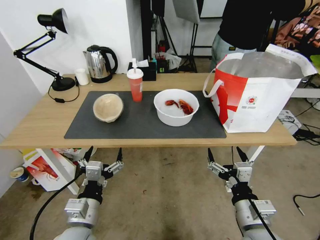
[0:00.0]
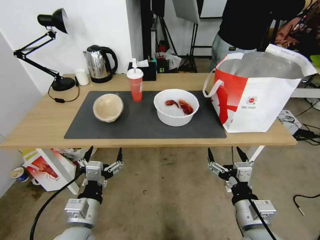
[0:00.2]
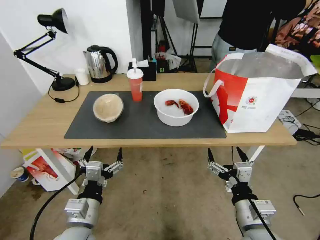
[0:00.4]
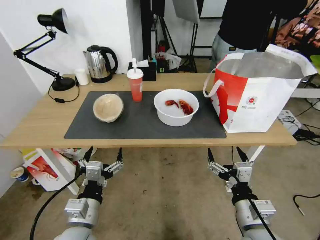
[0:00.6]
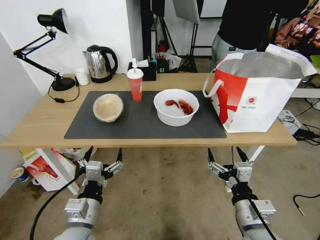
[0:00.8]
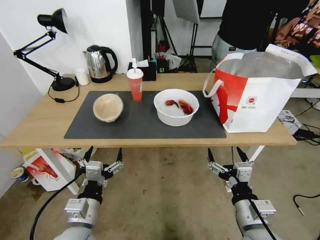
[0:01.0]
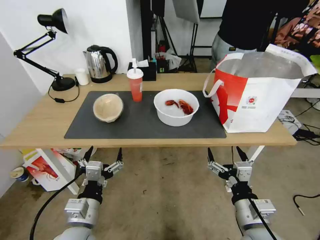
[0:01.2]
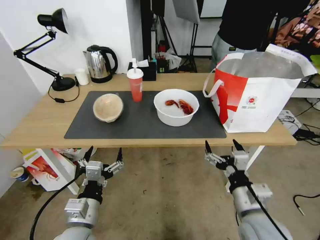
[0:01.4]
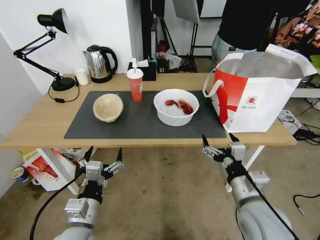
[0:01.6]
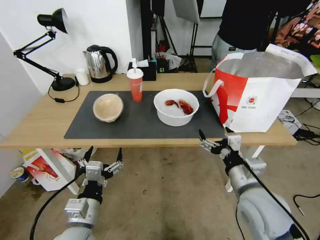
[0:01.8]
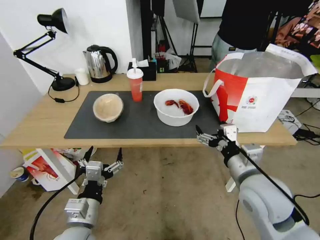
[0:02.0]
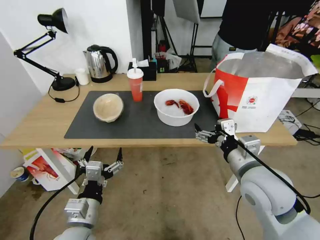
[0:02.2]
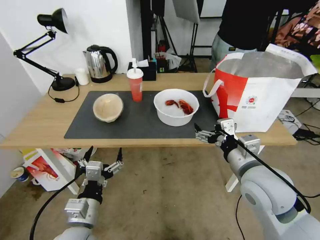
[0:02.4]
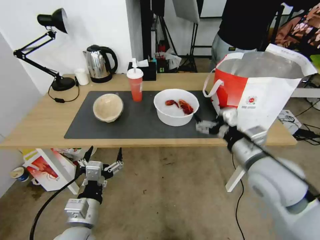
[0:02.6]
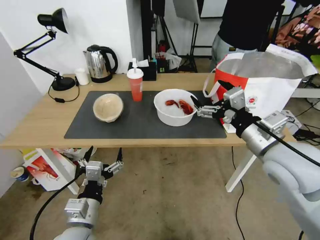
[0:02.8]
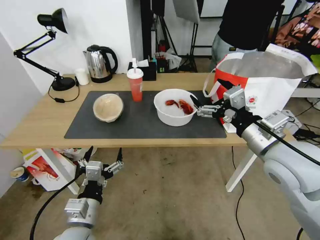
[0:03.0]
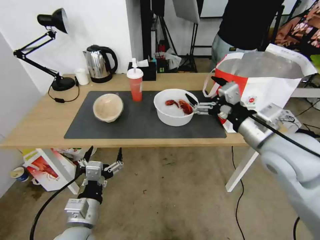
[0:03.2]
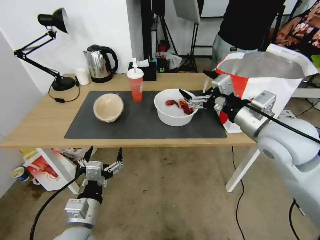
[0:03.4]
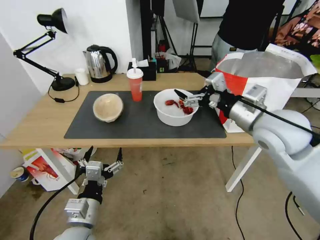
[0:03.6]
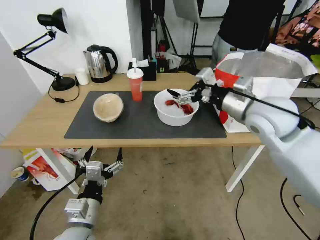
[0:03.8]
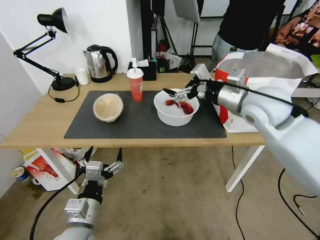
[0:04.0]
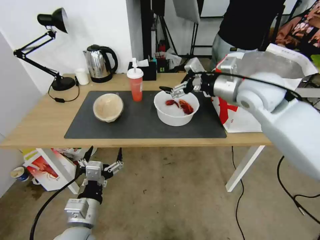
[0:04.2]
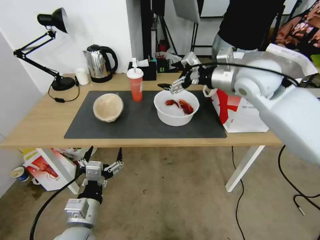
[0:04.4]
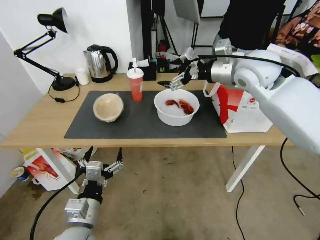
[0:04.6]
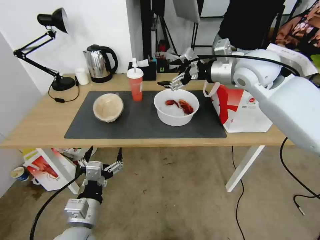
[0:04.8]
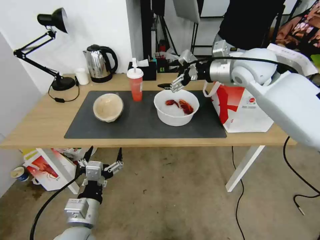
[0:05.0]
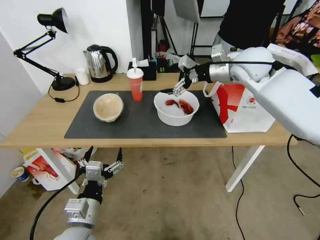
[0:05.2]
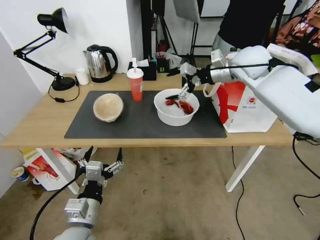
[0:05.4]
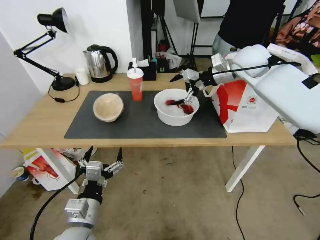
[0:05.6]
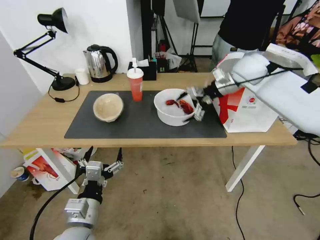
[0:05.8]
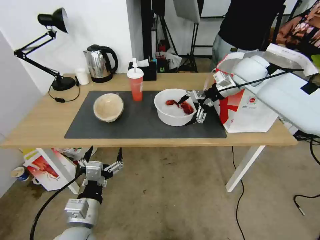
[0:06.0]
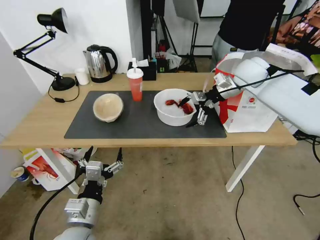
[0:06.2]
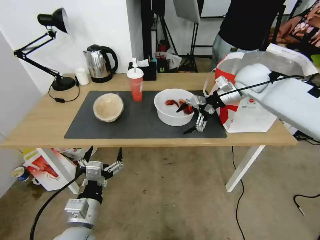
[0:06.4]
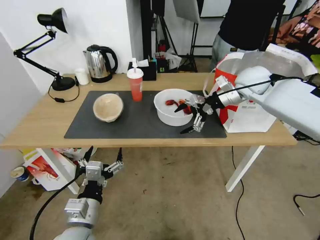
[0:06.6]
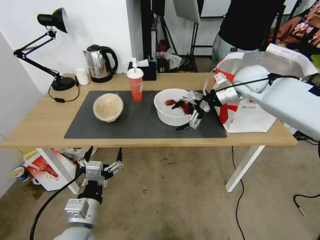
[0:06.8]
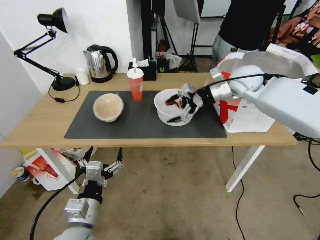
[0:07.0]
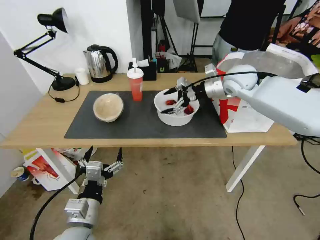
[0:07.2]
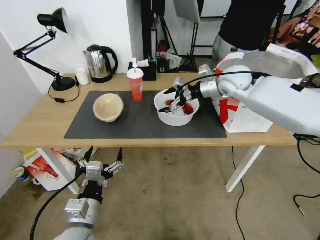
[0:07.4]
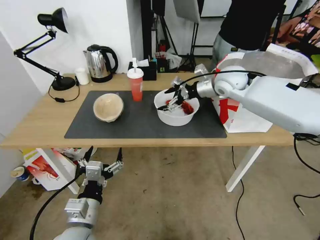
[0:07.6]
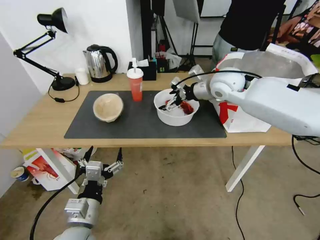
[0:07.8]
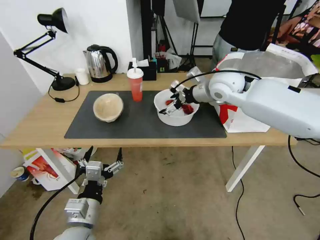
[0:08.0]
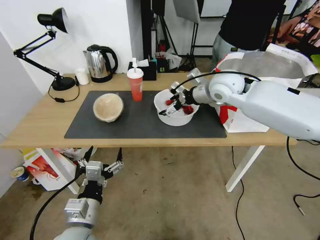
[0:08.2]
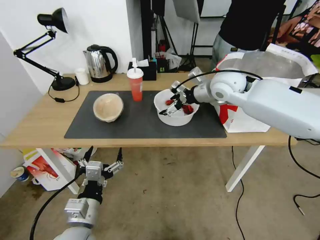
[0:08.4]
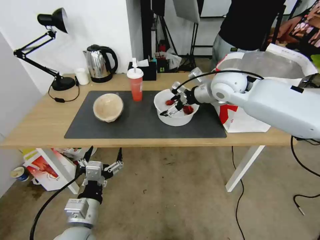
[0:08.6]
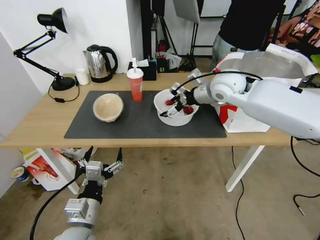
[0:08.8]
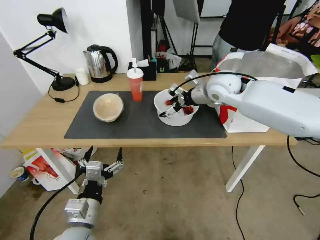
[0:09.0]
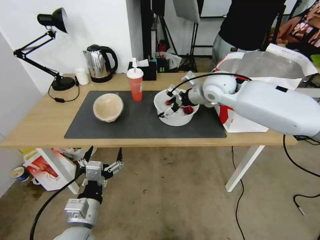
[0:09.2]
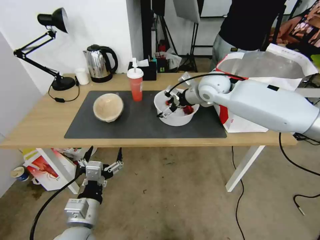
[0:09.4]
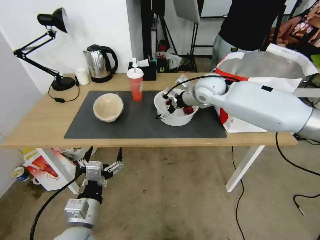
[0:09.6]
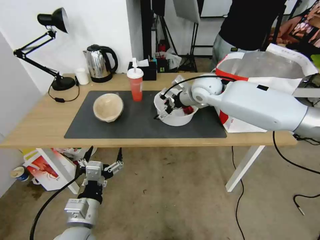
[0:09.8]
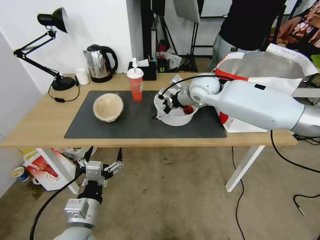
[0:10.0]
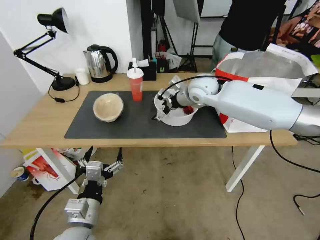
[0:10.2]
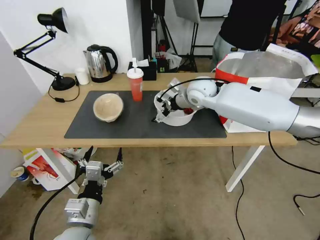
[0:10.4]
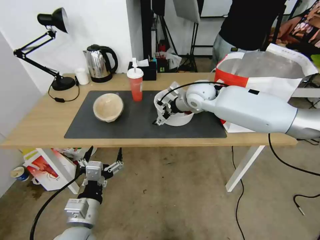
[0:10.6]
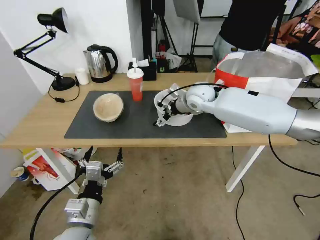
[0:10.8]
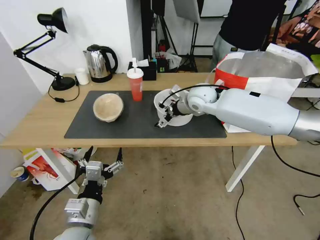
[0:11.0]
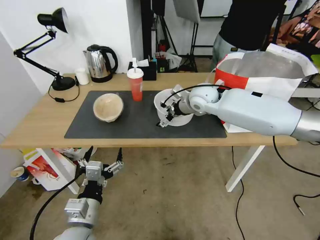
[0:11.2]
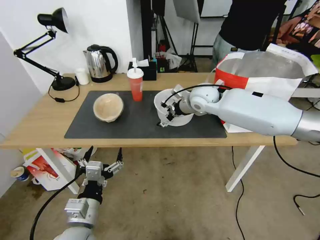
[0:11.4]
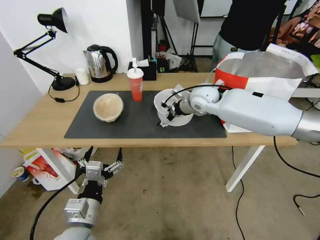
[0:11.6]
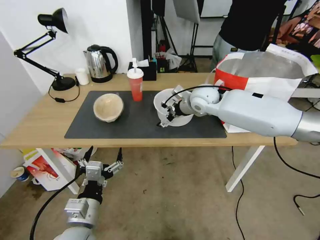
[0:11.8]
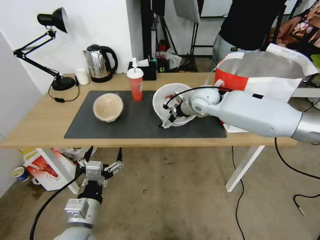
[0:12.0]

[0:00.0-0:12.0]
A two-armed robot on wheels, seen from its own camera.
Task of the whole recording: Pick up the trash from the table and place it into the takeout bag.
0:01.6 to 0:03.0: The right gripper shifts roughly 15 cm upward and forward.
0:03.0 to 0:04.4: The right gripper moves forward and upward, about 20 cm.
0:04.4 to 0:06.0: The right gripper shifts about 10 cm forward and to the right.
0:06.0 to 0:07.6: The right gripper moves to the left, about 5 cm.
0:07.6 to 0:09.0: The grippers stay close to where they were, moving slightly.
0:09.0 to 0:10.4: The right gripper is displaced to the left by some 5 cm.
0:10.4 to 0:12.0: The grippers move only a little.

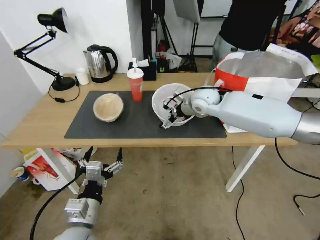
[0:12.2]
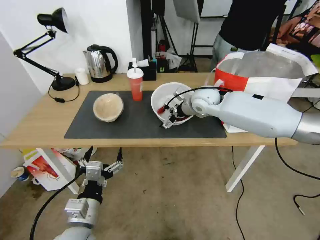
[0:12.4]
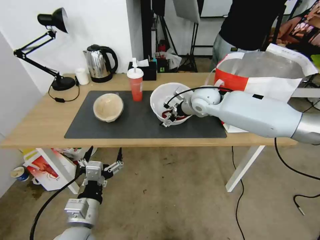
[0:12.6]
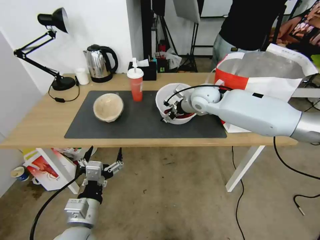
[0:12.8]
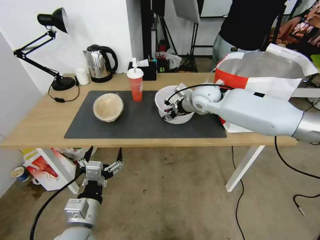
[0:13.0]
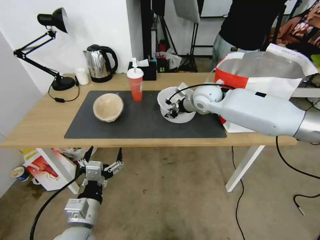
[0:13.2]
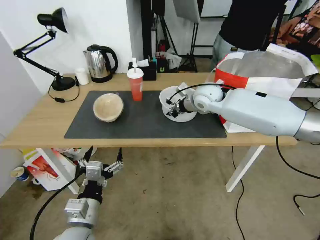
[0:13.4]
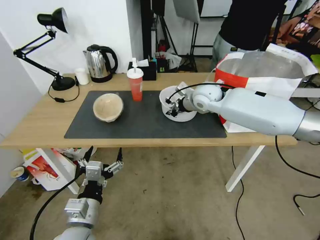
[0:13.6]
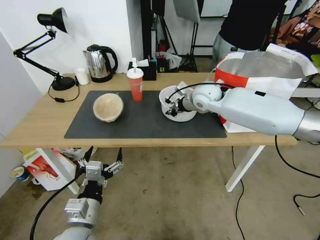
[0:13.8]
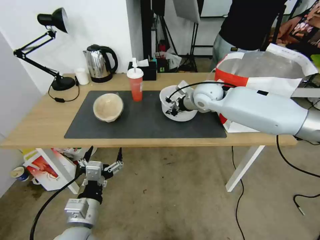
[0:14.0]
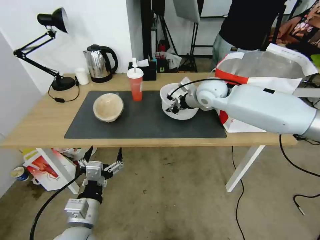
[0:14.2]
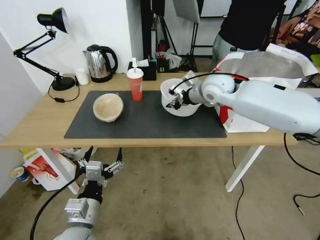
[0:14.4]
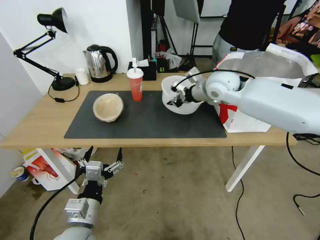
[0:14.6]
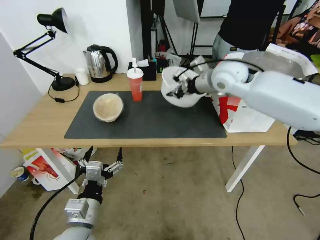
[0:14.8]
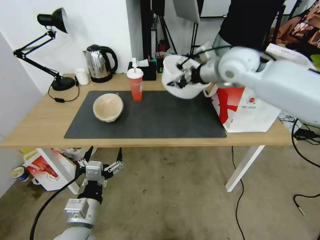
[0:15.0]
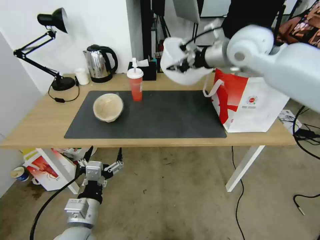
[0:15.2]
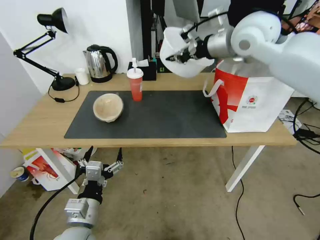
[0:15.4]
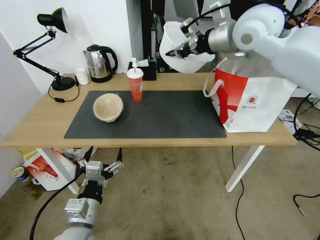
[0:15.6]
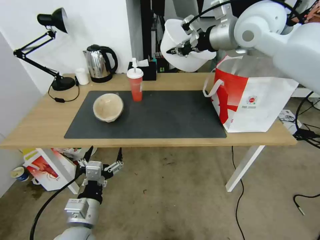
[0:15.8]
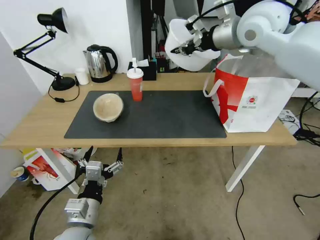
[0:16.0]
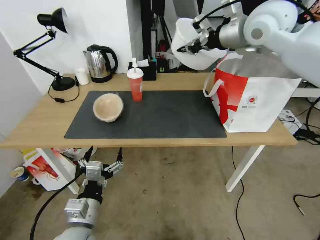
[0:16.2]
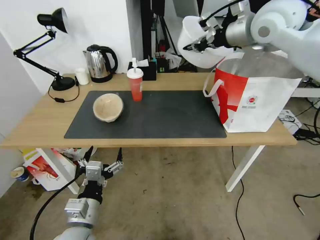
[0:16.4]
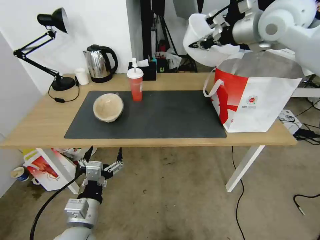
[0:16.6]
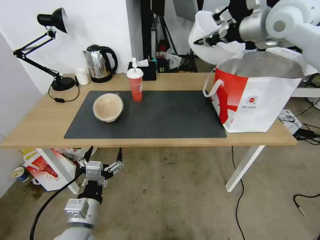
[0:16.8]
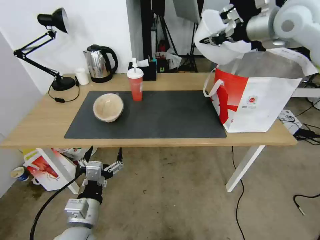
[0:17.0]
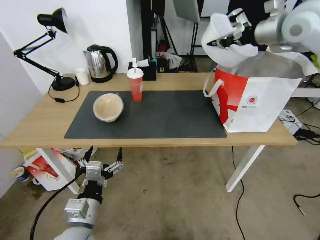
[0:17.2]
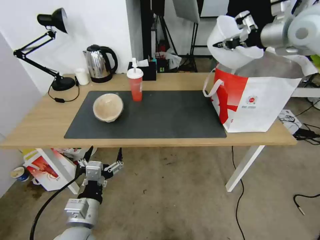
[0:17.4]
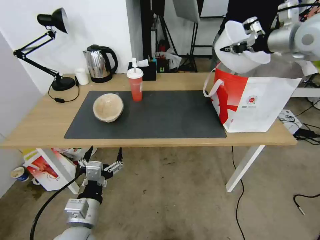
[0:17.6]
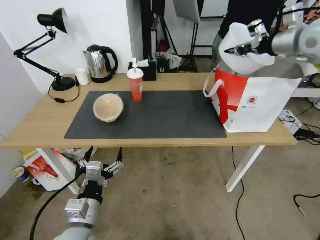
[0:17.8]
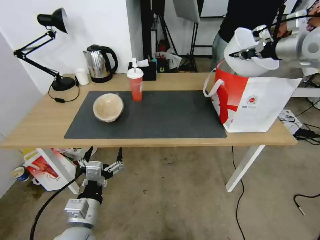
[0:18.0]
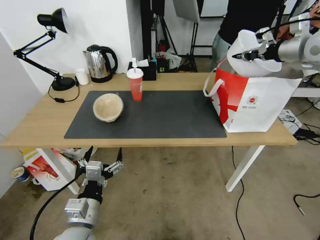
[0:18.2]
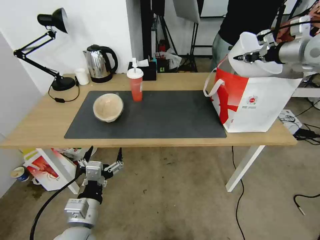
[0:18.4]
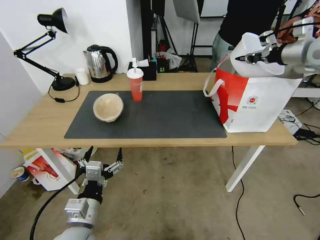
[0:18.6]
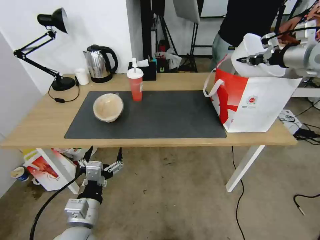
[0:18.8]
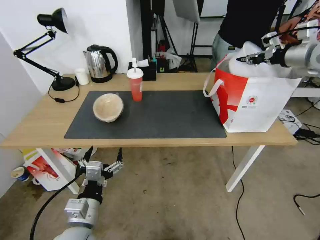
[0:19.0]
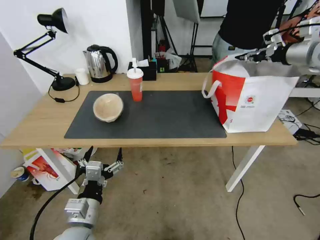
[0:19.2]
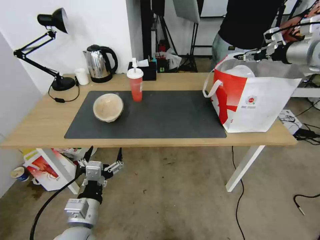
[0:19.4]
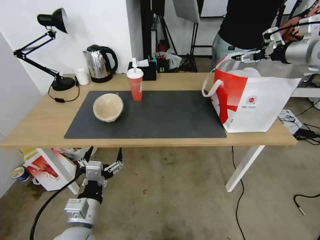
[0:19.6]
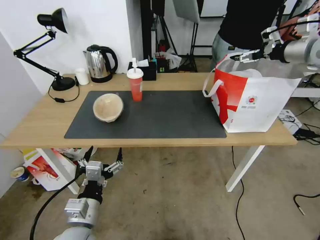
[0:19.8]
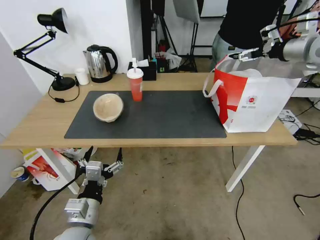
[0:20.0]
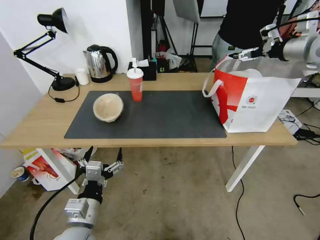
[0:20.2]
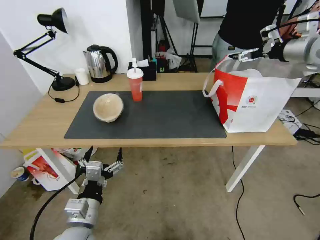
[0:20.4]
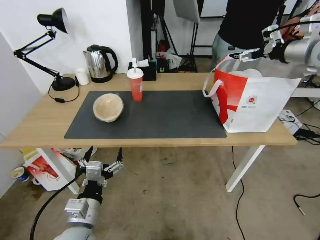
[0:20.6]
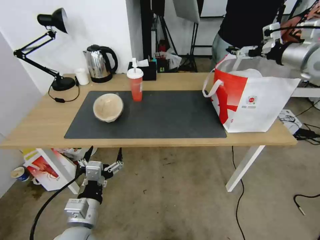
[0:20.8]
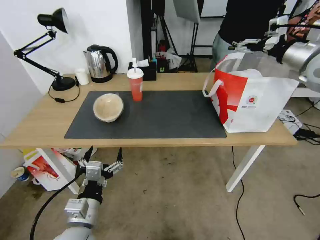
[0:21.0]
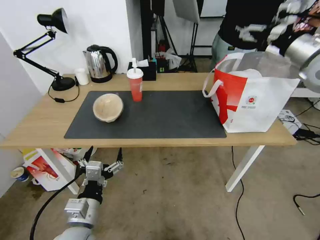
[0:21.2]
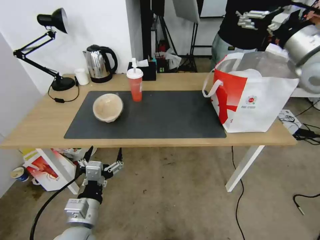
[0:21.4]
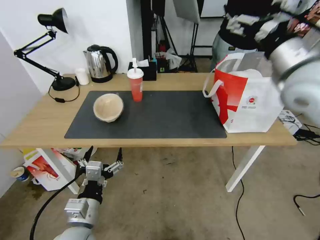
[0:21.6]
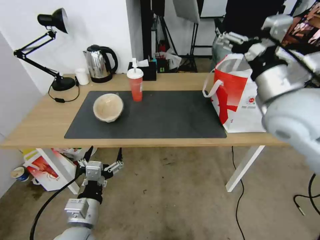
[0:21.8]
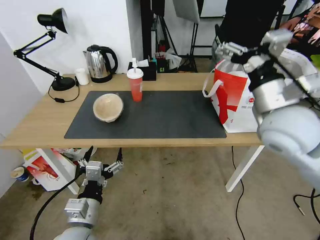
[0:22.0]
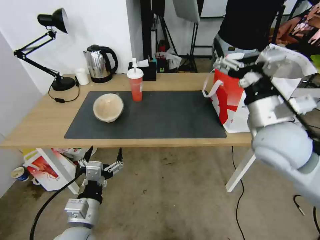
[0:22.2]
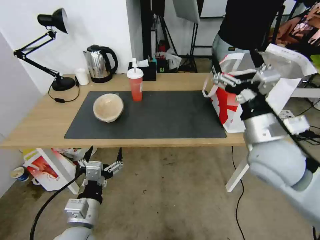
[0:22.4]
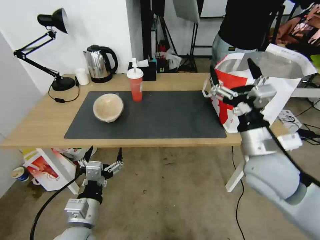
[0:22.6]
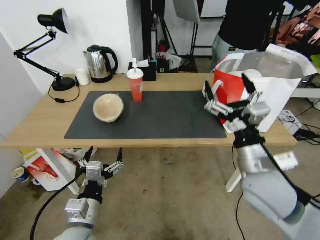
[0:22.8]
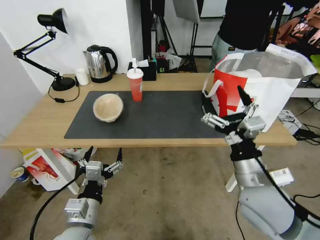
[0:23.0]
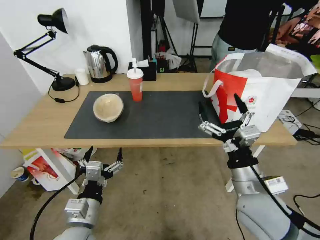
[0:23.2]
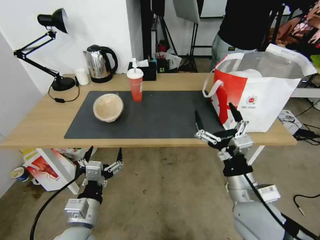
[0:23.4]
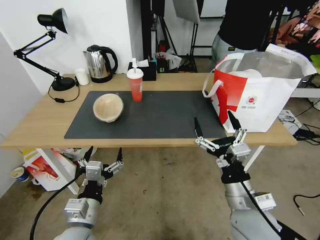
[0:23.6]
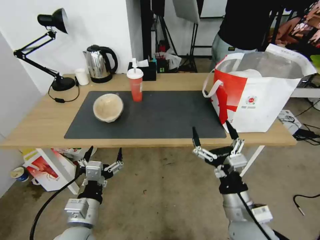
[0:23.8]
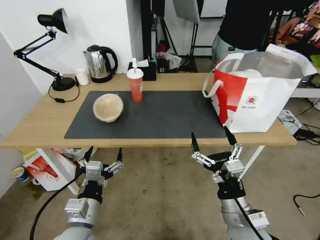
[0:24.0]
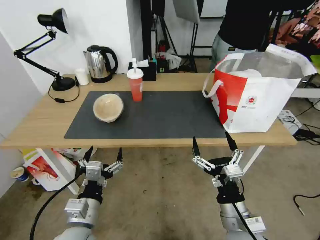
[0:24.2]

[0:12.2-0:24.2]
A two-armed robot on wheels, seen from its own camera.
Task of the whole recording: Pick up the trash from the table and place it into the takeout bag.
0:12.2 to 0:13.8: The right gripper closes.
0:13.8 to 0:15.2: The right gripper heads upward, covering approximately 20 cm.
0:15.2 to 0:16.6: The right gripper moves to the right and upward, about 10 cm.
0:16.6 to 0:18.2: The right gripper heads to the right, covering about 15 cm.
0:18.2 to 0:19.8: The right gripper opens its fingers.
0:19.8 to 0:21.2: The right gripper shifts some 5 cm backward.
0:21.2 to 0:22.6: The right gripper goes about 30 cm downward, backward and to the left.
0:22.6 to 0:24.2: The right gripper is displaced downward and backward by approximately 20 cm.
